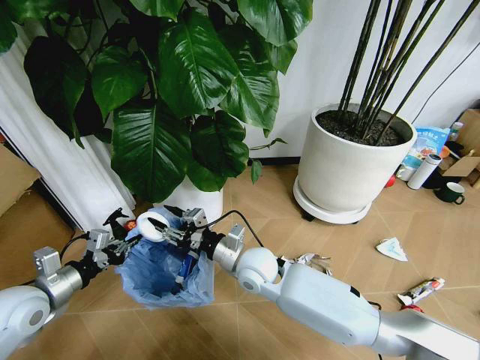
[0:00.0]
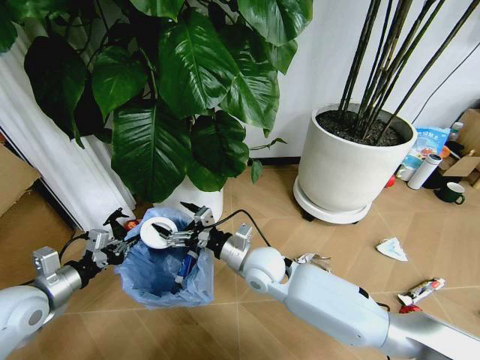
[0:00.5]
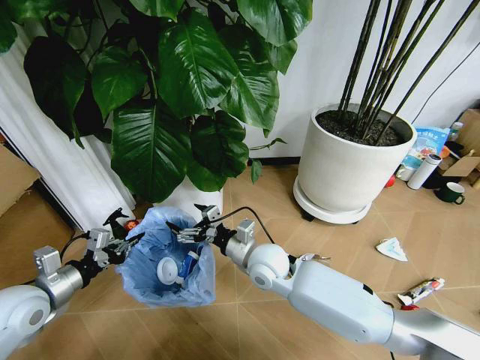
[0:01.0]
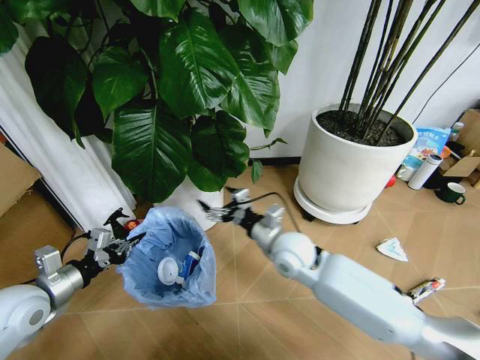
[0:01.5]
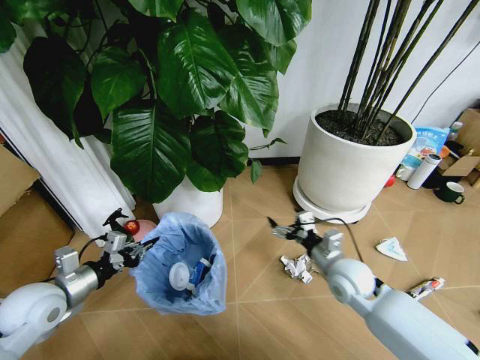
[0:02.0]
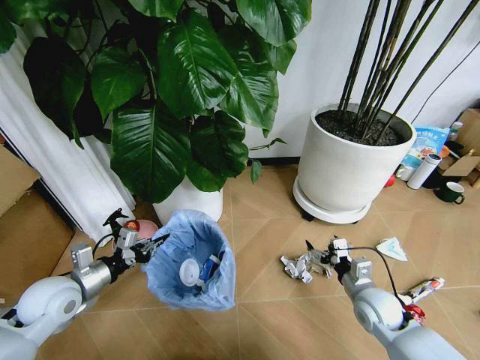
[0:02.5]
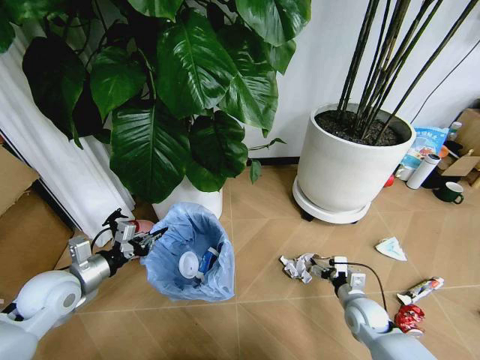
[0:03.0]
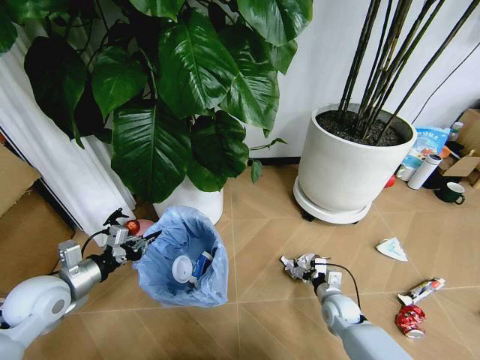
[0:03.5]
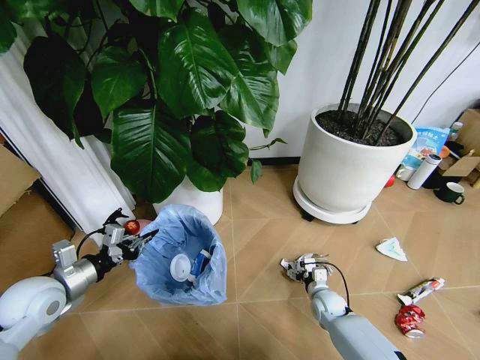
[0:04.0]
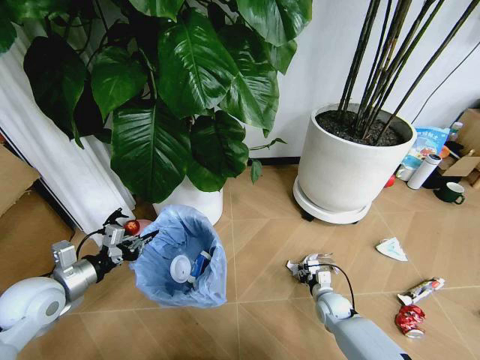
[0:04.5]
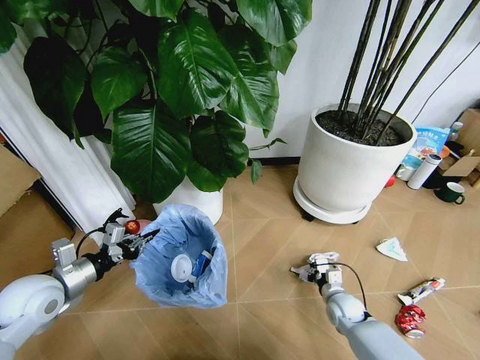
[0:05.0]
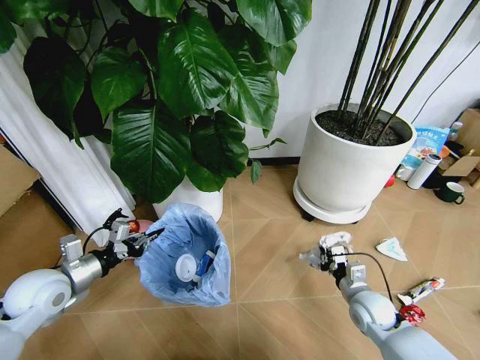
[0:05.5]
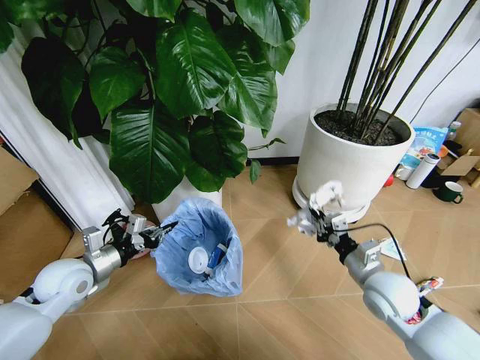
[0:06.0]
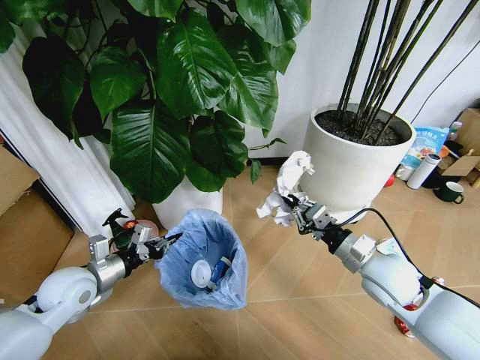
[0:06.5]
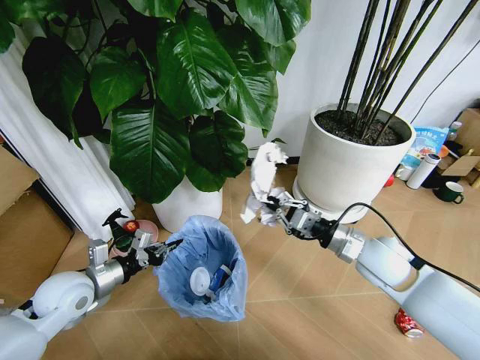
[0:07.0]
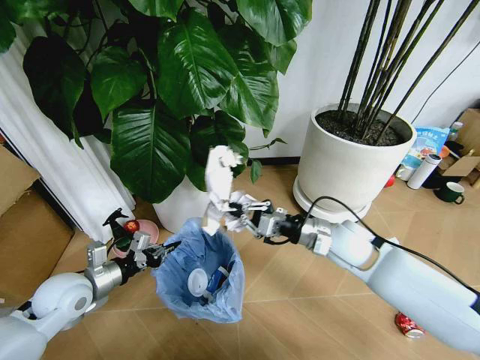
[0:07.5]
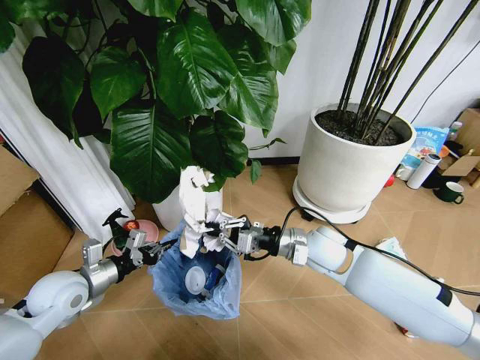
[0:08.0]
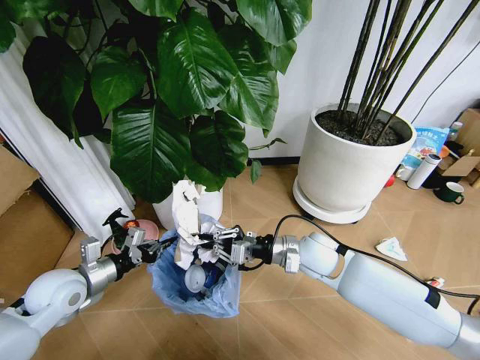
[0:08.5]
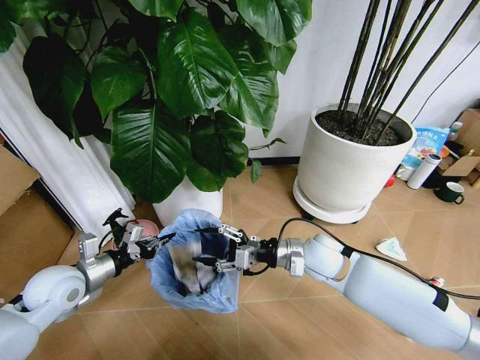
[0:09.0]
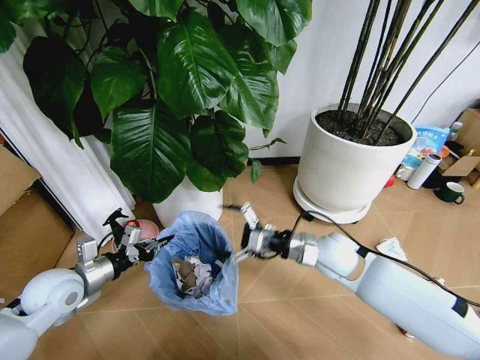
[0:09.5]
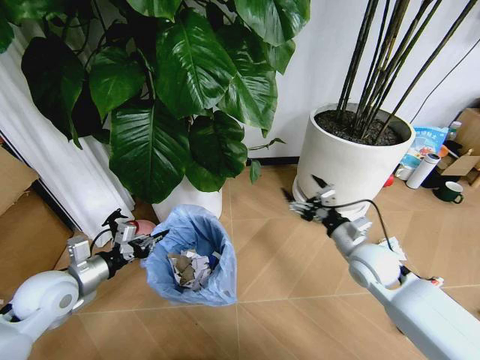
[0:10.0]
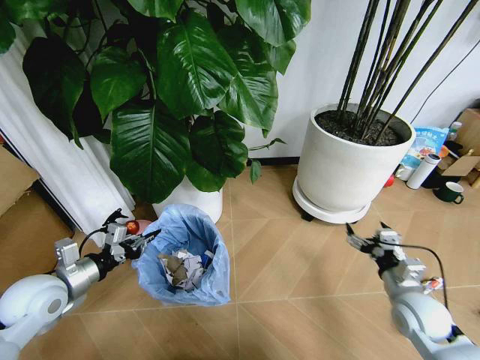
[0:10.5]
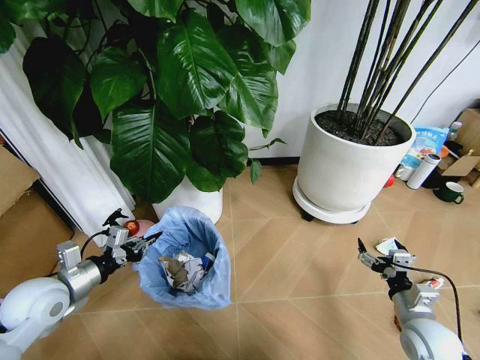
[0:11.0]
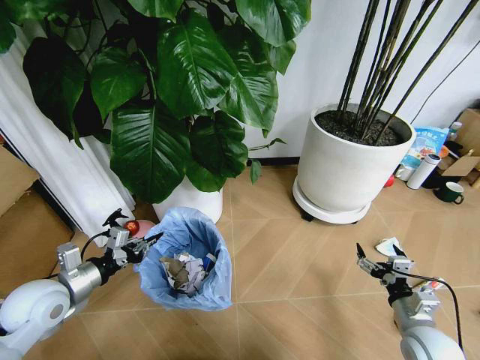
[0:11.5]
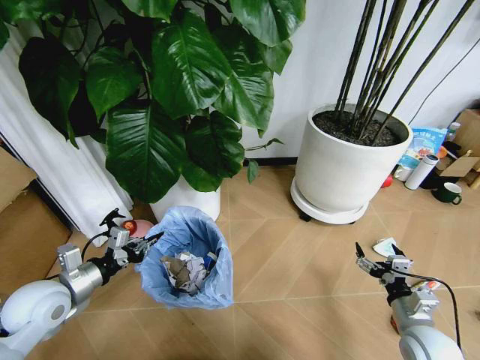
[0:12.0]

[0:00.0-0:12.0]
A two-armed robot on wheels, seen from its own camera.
Task of the whole recording: Pick up the trash bin and place the garbage on the floor into it.
0:00.0 to 0:02.0: The right gripper shifts roughly 20 cm to the right, and opens.
0:02.0 to 0:04.0: The right gripper heads downward, covering some 20 cm.
0:04.0 to 0:06.0: The right gripper is displaced upward by approximately 25 cm, and closes up, while the left gripper ends up roughly 5 cm from where it was.
0:06.0 to 0:08.0: The right gripper goes approximately 15 cm to the left and forward.
0:08.0 to 0:10.0: The right gripper shifts roughly 10 cm to the right, and opens its fingers.
0:10.0 to 0:12.0: The right gripper shifts approximately 20 cm backward, downward and to the right.

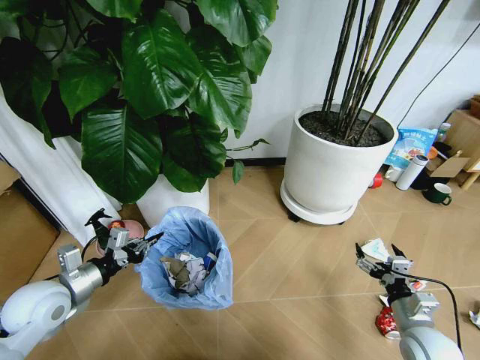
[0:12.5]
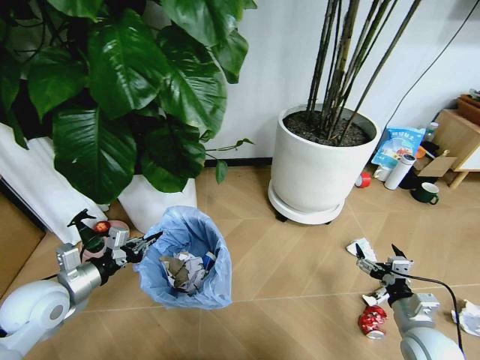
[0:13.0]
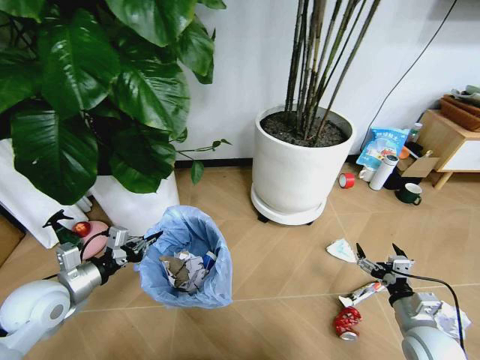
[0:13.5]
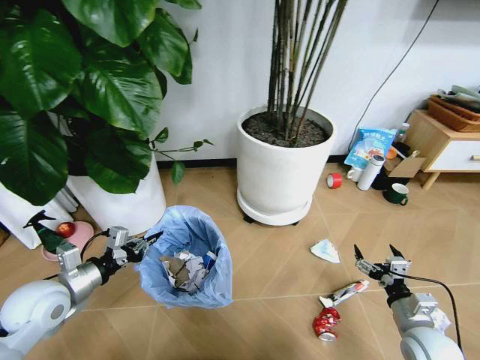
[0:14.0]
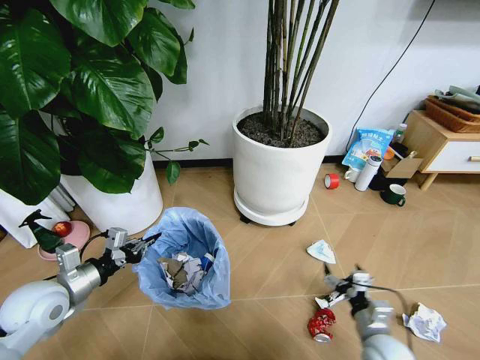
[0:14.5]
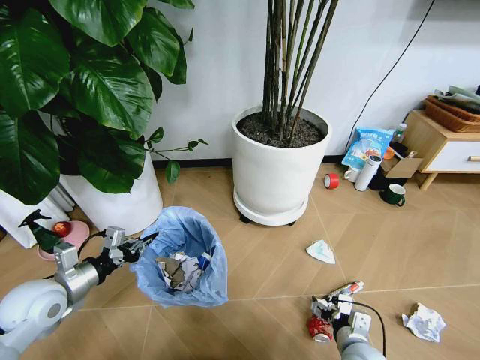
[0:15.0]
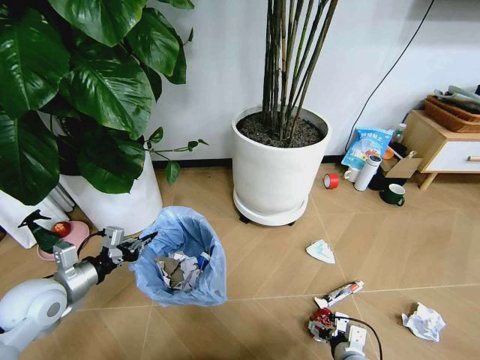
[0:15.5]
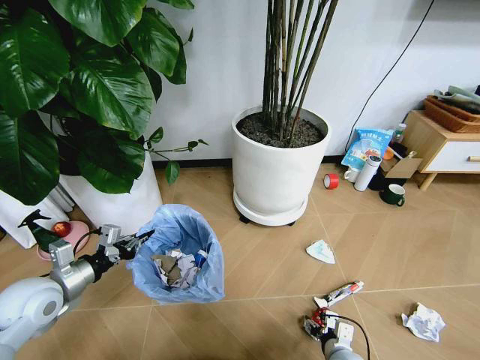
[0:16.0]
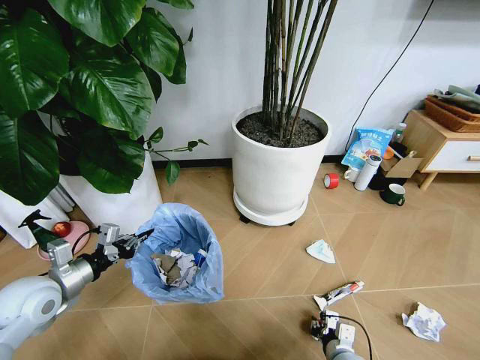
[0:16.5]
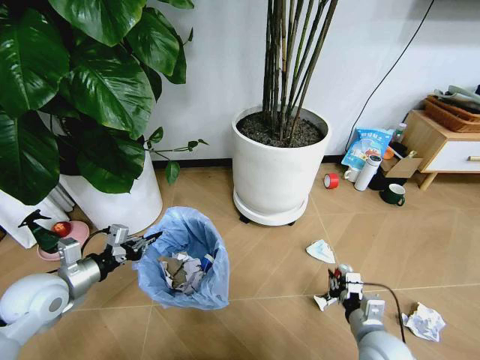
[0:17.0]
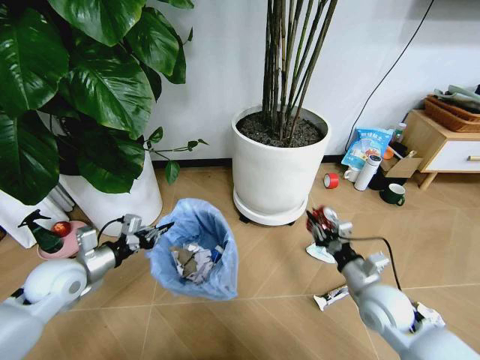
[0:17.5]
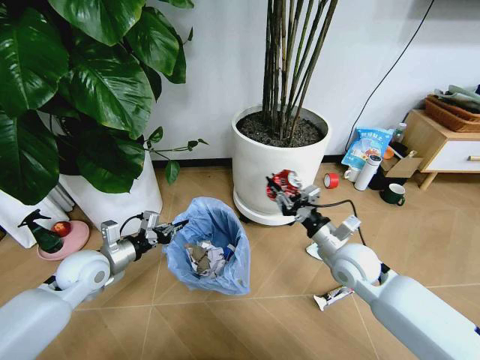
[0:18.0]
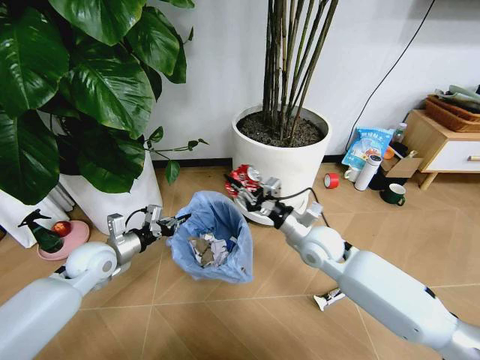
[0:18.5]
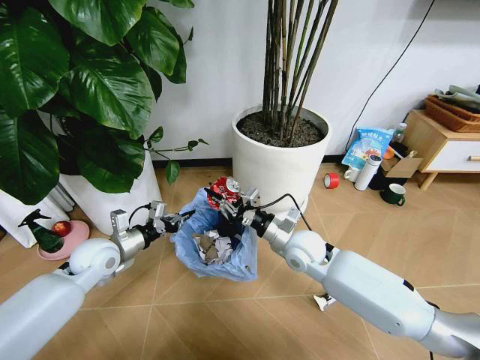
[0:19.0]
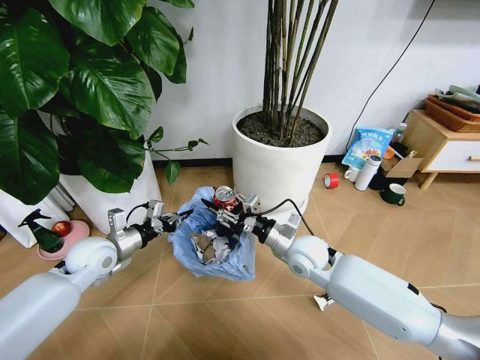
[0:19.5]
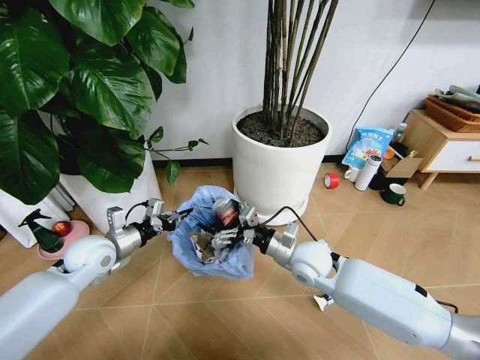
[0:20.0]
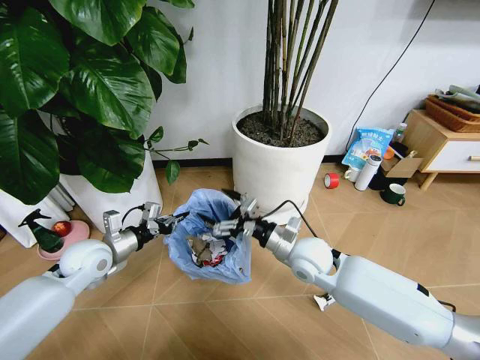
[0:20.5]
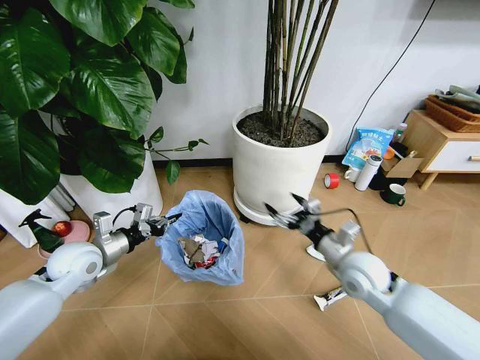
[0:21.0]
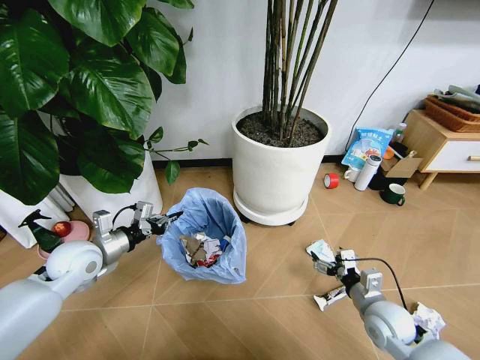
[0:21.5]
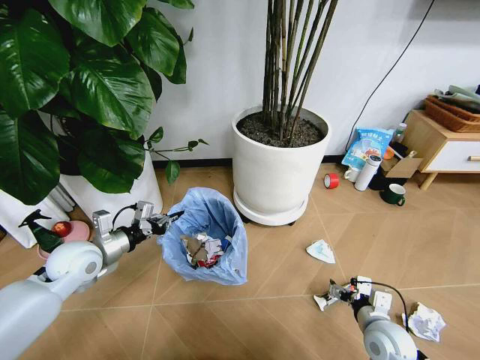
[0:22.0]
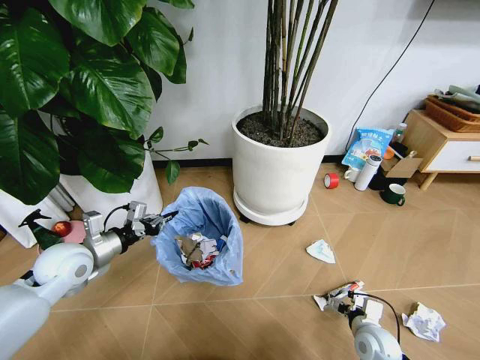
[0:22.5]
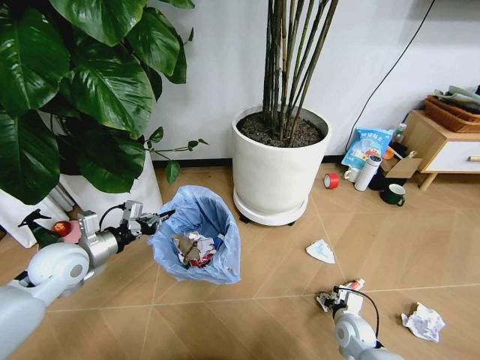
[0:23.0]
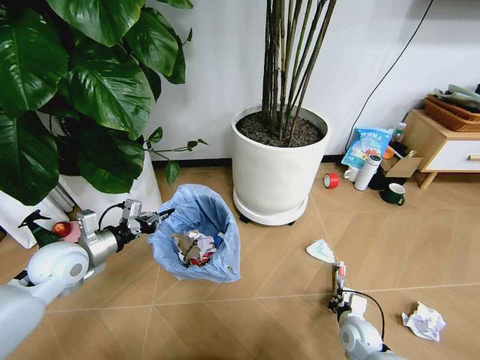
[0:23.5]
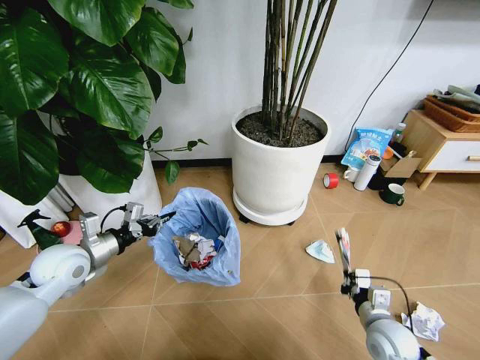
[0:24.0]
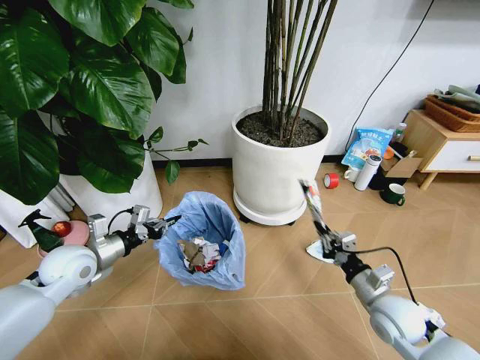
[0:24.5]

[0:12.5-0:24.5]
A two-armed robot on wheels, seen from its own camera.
Task of the whole recording: Pick up the trash bin and place the garbage on the floor into it.
0:12.5 to 0:14.5: The right gripper shifts some 5 cm to the left.
0:14.5 to 0:16.5: The right gripper heads to the left and downward, covering some 10 cm, and closes.
0:16.5 to 0:18.5: The right gripper shifts roughly 30 cm forward and upward. Meanwhile the left gripper moves forward and to the right, some 10 cm.
0:18.5 to 0:20.5: The right gripper opens its fingers.
0:20.5 to 0:22.5: The right gripper heads downward, to the right and backward, covering about 30 cm.
0:22.5 to 0:24.5: The right gripper heads upward, covering some 15 cm, and closes up.

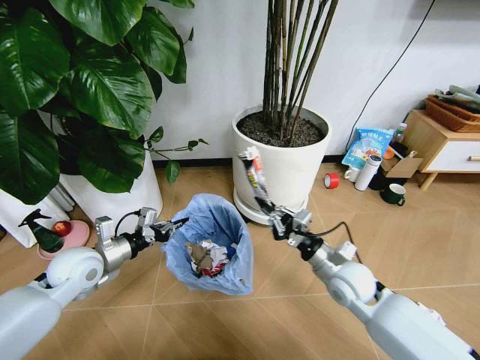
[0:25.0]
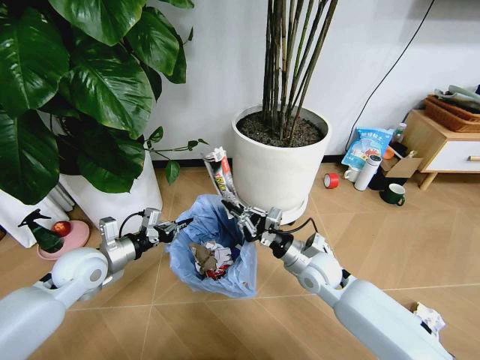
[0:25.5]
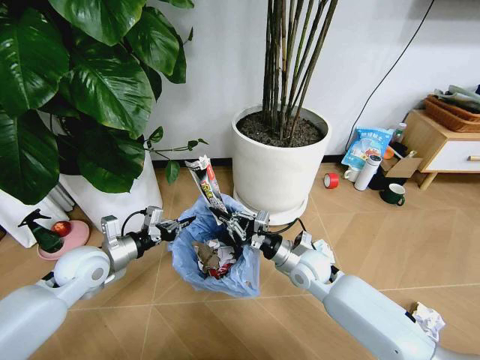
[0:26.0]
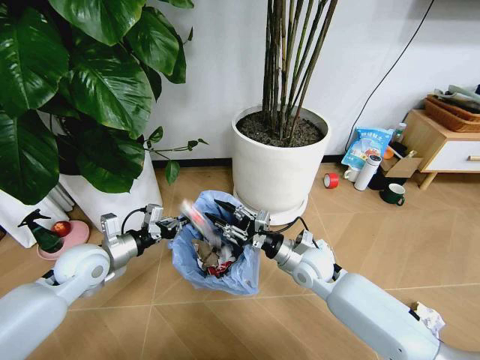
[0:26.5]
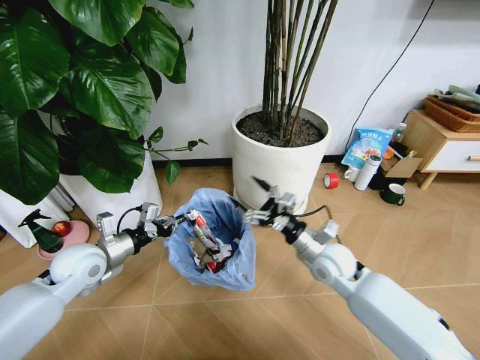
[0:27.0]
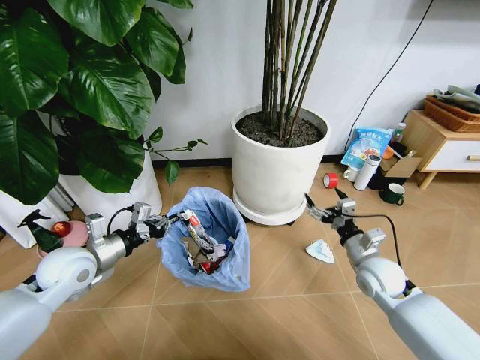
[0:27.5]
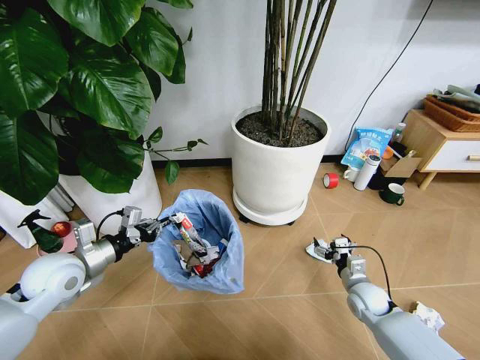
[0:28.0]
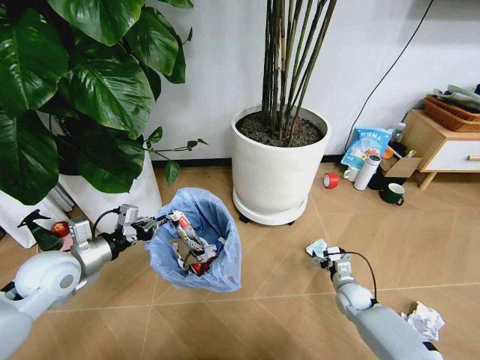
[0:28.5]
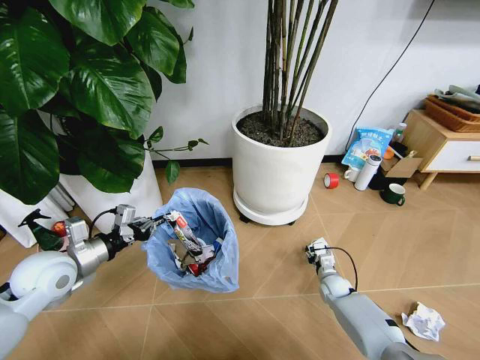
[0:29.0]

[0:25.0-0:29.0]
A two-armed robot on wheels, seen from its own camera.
Task of the whole recording: Pick up the trash bin and place the garbage on the floor into it.
0:25.0 to 0:27.0: The right gripper opens.
0:27.0 to 0:29.0: The left gripper moves about 5 cm, while the right gripper shifts approximately 25 cm downward, and closes.
